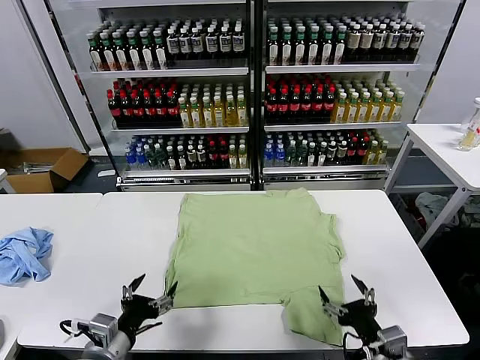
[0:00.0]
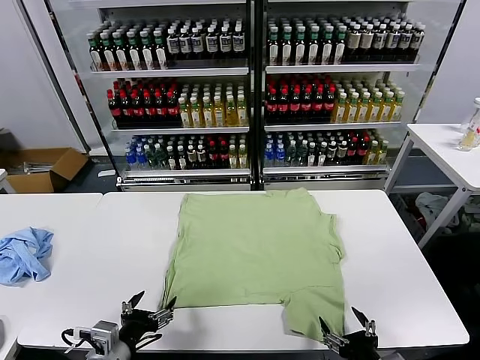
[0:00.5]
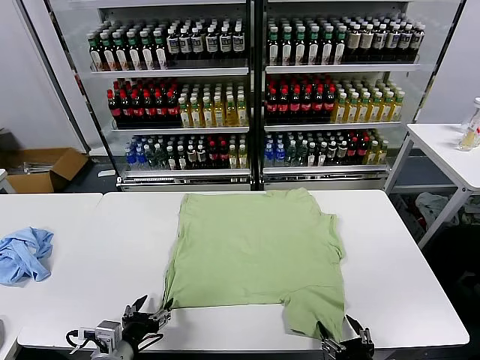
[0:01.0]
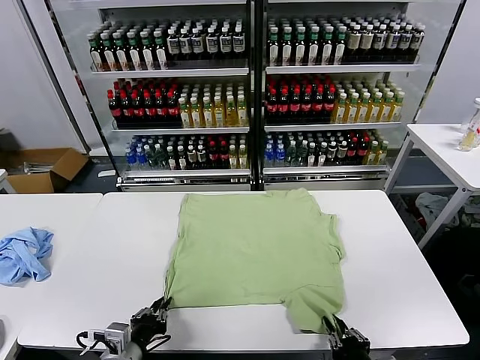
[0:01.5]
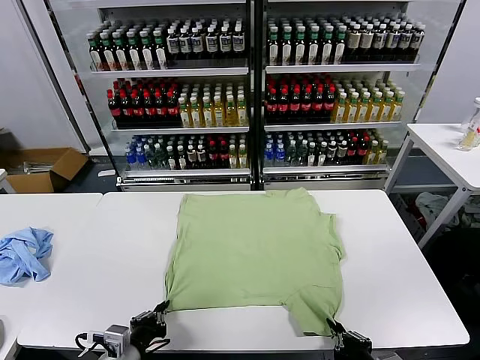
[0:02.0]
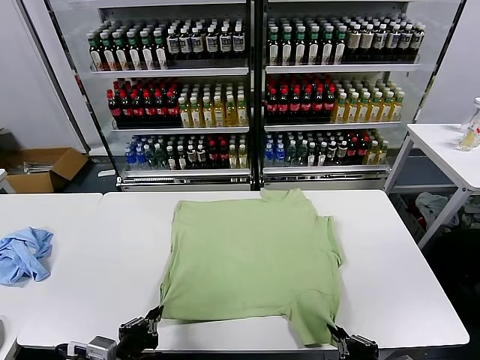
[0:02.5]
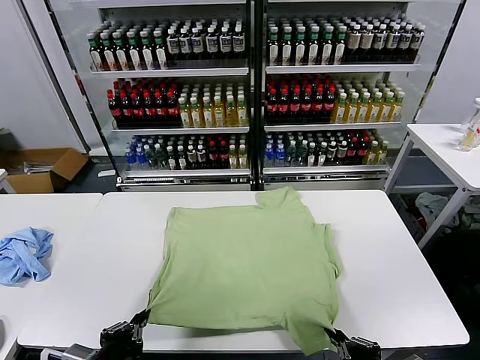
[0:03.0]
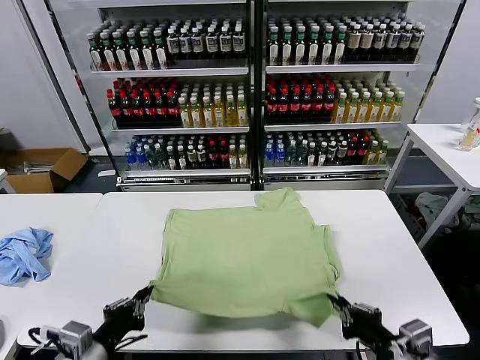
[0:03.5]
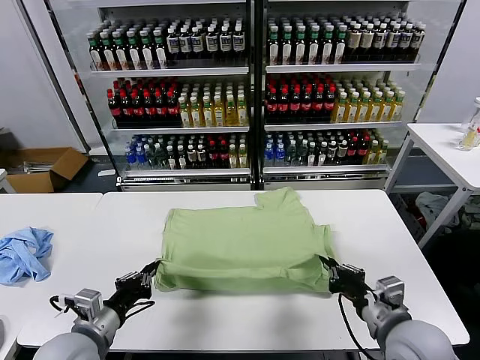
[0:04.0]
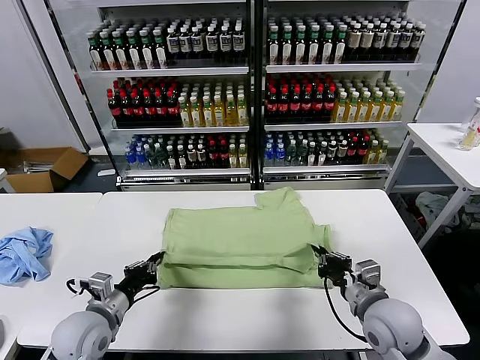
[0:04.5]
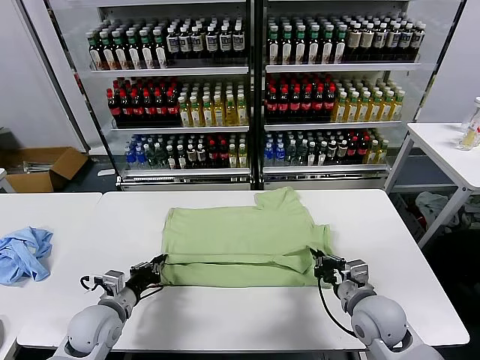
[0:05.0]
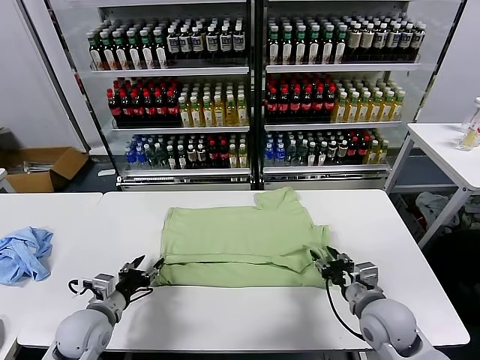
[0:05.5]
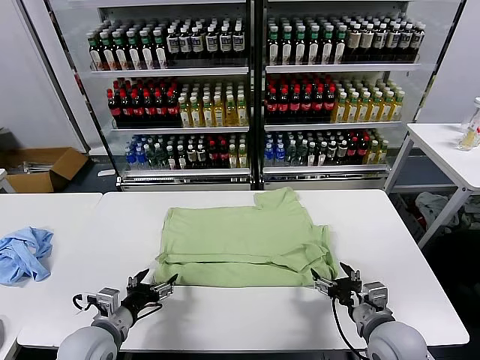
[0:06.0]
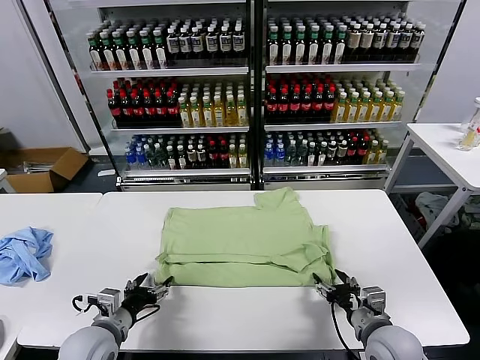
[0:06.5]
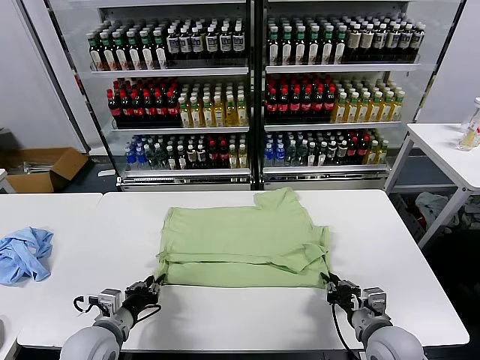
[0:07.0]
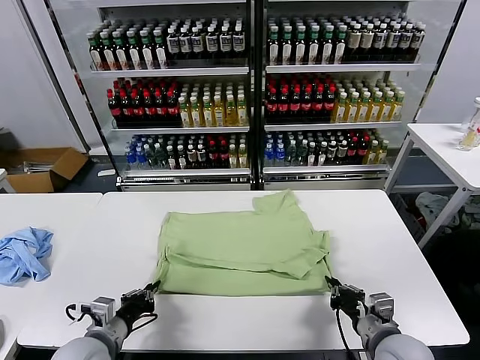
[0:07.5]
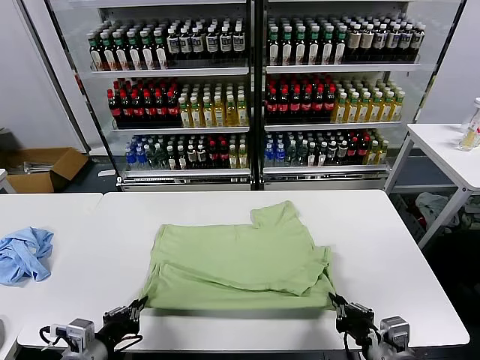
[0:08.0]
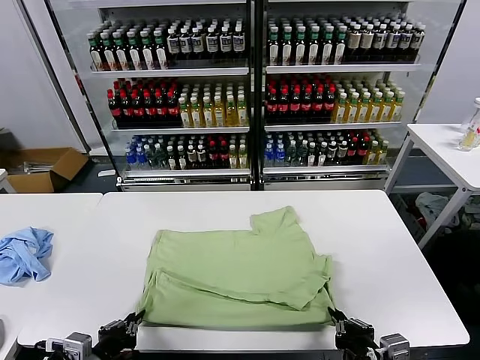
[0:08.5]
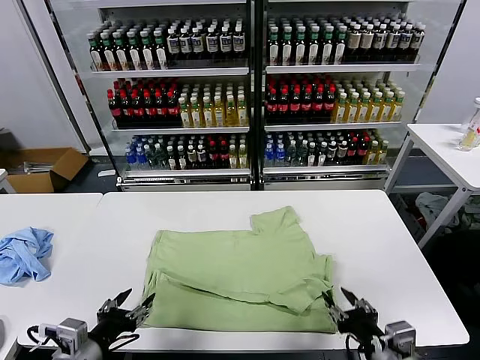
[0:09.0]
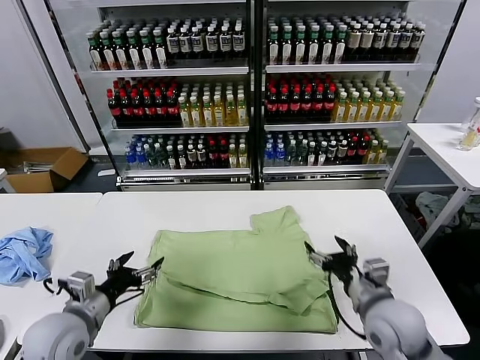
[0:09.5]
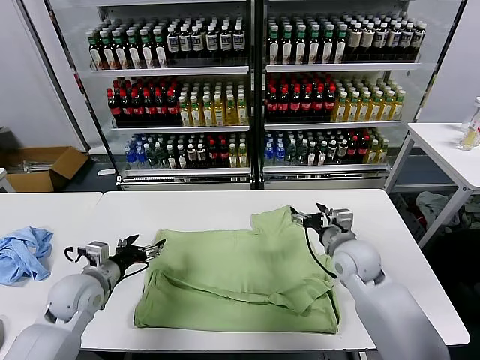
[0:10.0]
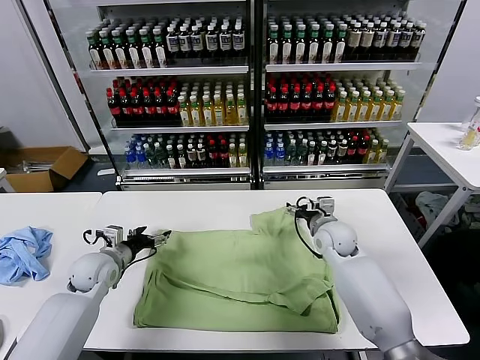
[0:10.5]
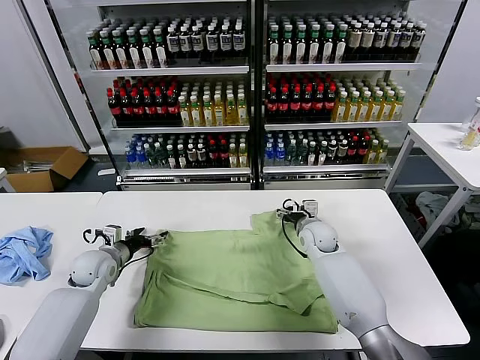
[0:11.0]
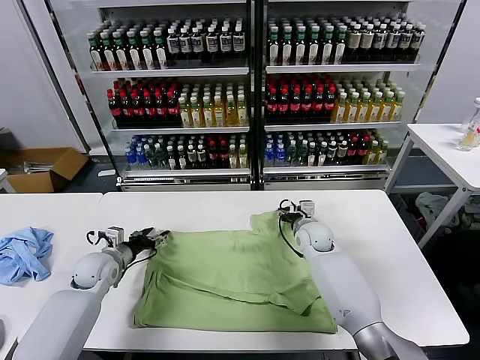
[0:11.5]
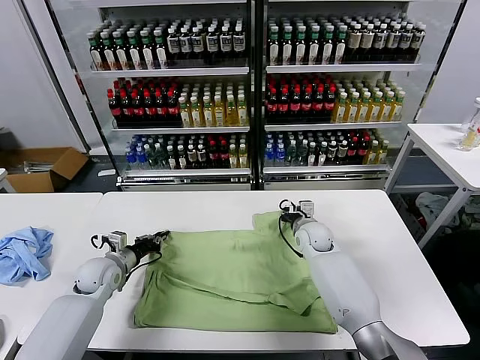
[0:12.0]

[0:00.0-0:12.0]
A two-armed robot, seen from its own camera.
Task of the whole recording: fold and organize the clothes.
Step, 0:00.0 to 0:02.0: use both grippers simultaneously to clamp the lower edge of the clothing fabric.
Step, 0:02.5 to 0:05.5: use both grippers to drag the lower edge of the fabric forward and fold it over the upper edge.
Step, 0:06.0 to 0:08.5: Drag the clothes downward with both gripper.
0:02.0 to 0:04.0: The right gripper travels forward and upward by some 15 cm. The left gripper is displaced forward and upward by some 5 cm.
0:04.0 to 0:06.0: The two grippers go roughly 5 cm downward. The right gripper opens its fingers. The left gripper travels forward and back again, approximately 10 cm each way, and opens its fingers.
0:06.0 to 0:08.0: The grippers both shift backward by approximately 10 cm. The right gripper closes its fingers. Meanwhile the left gripper closes.
0:08.0 to 0:10.0: The left gripper is displaced forward by some 20 cm, and opens, while the right gripper shifts about 25 cm forward, and opens.
0:10.0 to 0:12.0: The grippers both shift forward and downward by some 10 cm. The left gripper closes. The right gripper closes.

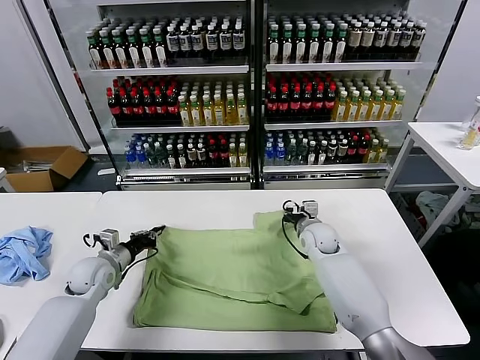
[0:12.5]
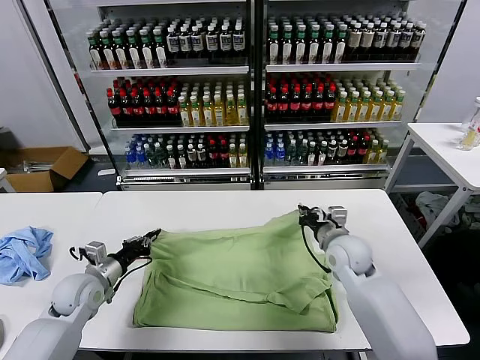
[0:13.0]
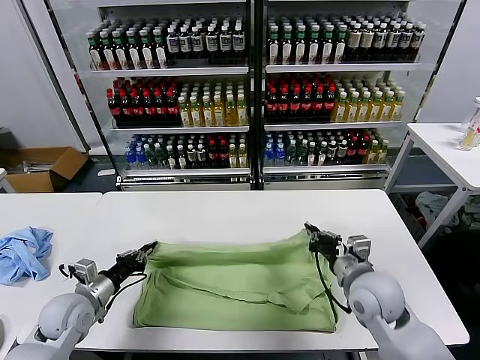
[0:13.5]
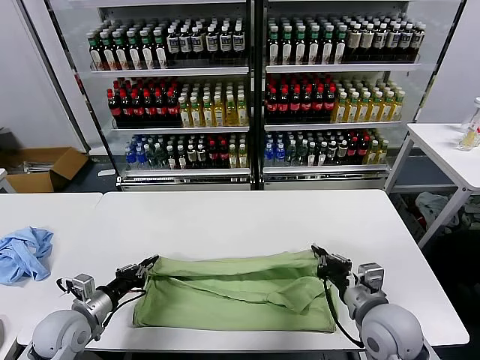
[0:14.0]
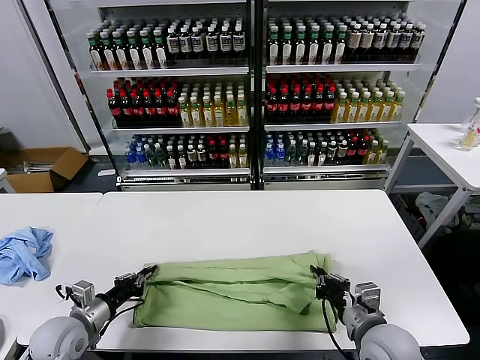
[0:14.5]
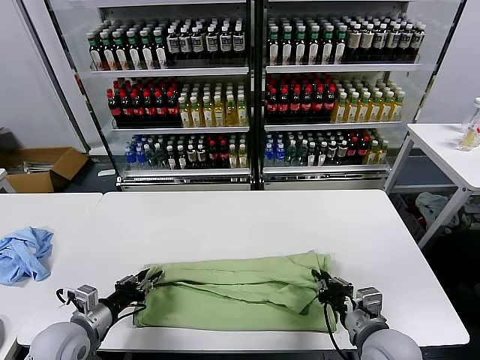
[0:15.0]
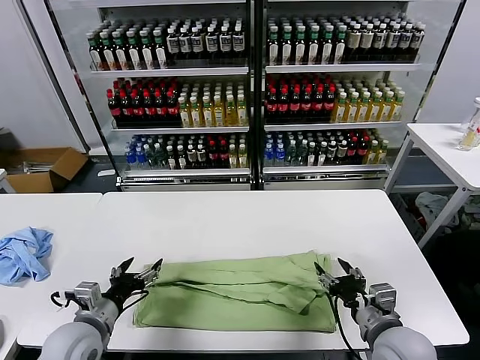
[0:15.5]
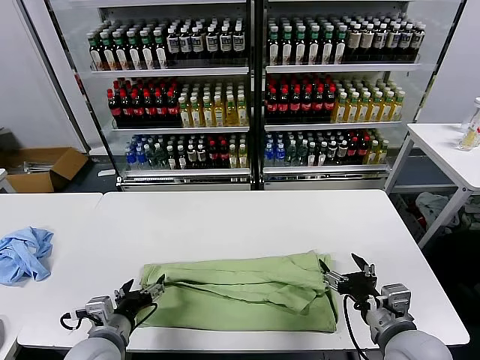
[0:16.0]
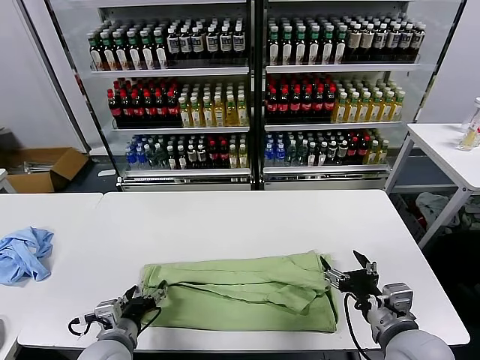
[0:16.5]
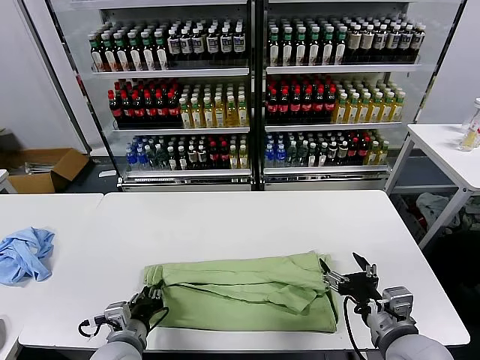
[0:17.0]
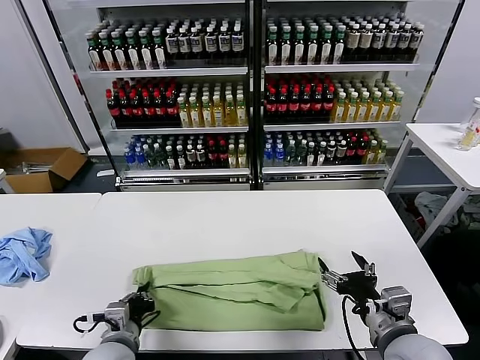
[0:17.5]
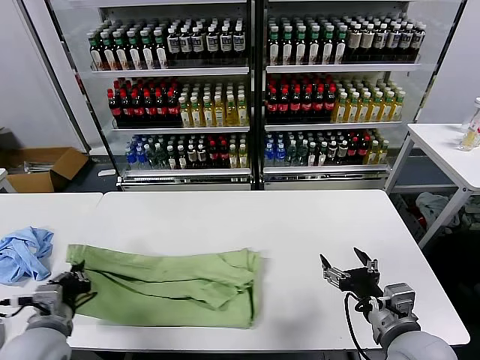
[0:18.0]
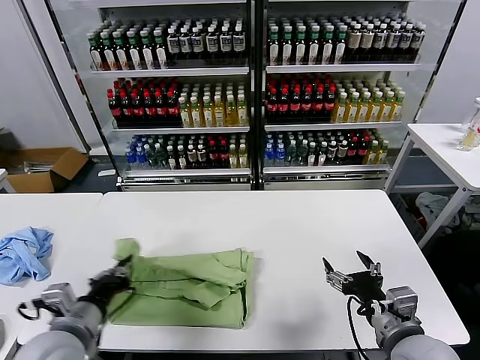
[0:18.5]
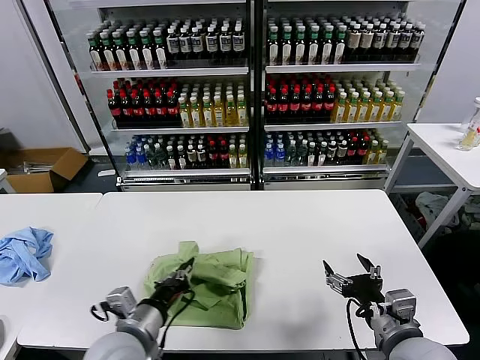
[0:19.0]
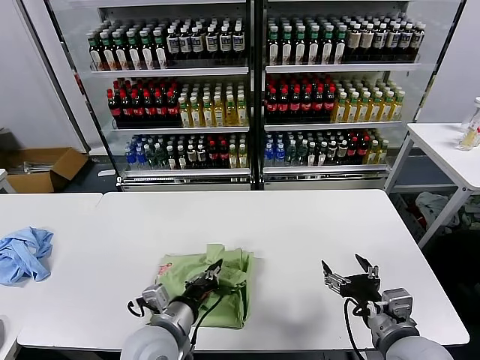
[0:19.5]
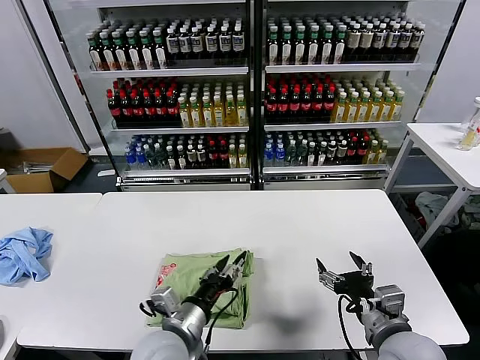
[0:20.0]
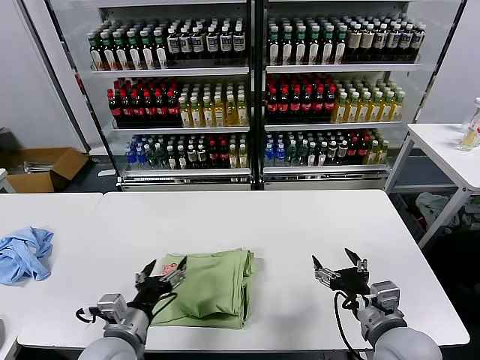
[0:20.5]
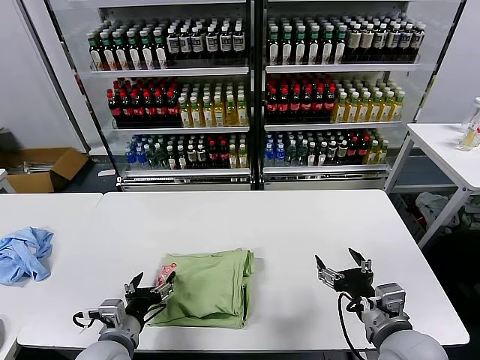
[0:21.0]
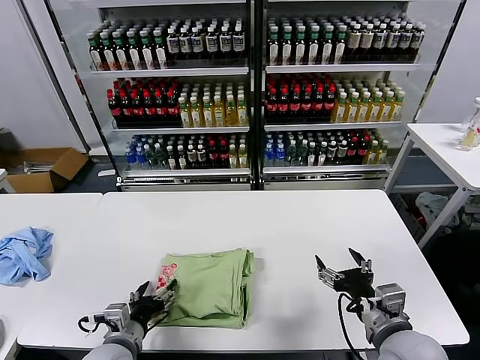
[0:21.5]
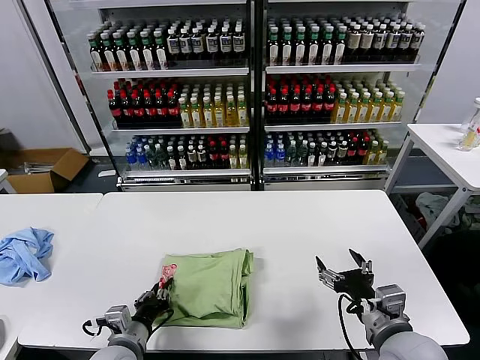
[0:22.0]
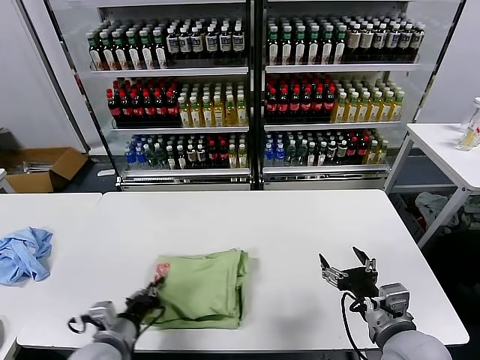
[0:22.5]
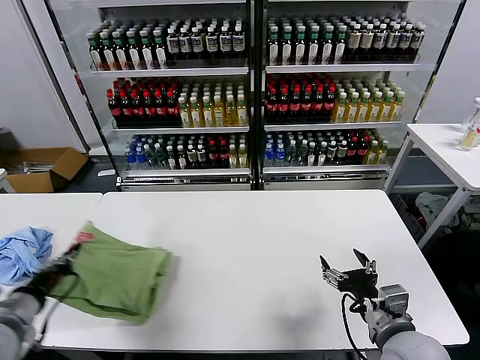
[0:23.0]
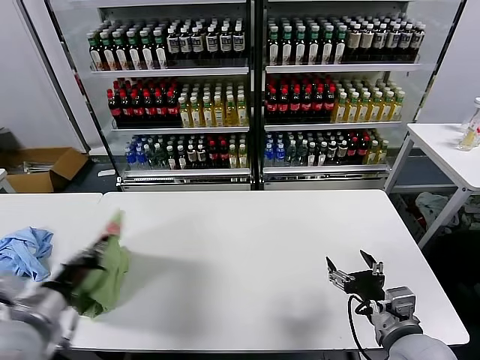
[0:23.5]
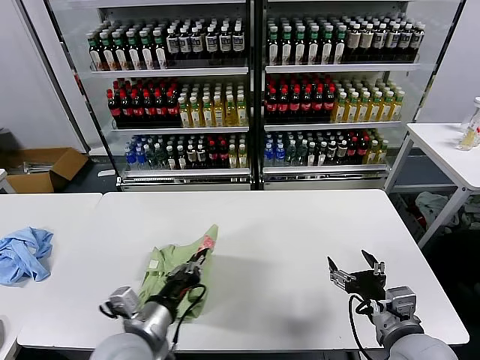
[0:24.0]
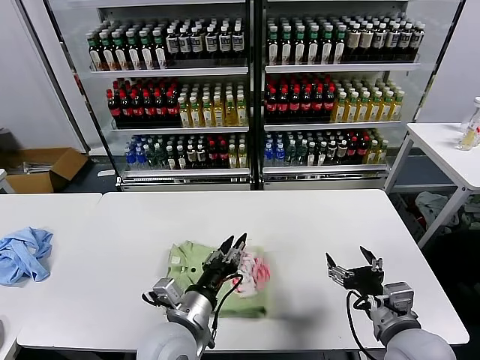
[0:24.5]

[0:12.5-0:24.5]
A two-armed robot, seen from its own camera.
Task of the whole recording: fold and organize the clothes.
Step, 0:12.5 to 0:15.0: use both grippers to drag the upper edge of the fabric backward and fold it over the lower edge.
Step, 0:15.5 to 0:17.0: use the left gripper to clamp the left edge of the fabric.
Step, 0:17.5 to 0:20.0: use the left gripper to drag the left edge of the fabric to the left and folds it over the right edge.
0:12.5 to 0:14.5: The right gripper is displaced backward by approximately 30 cm; the left gripper moves backward, some 15 cm.
0:14.5 to 0:16.5: The right gripper changes place by about 5 cm, and opens. Meanwhile the left gripper shifts some 10 cm to the right, and opens its fingers.
0:16.5 to 0:18.5: The left gripper is displaced upward by roughly 10 cm, and closes.
0:18.5 to 0:20.5: The left gripper moves to the right and downward, about 10 cm, and opens its fingers.
0:20.5 to 0:22.5: The left gripper closes.
0:22.5 to 0:24.5: The left gripper is displaced to the right and upward by some 15 cm.

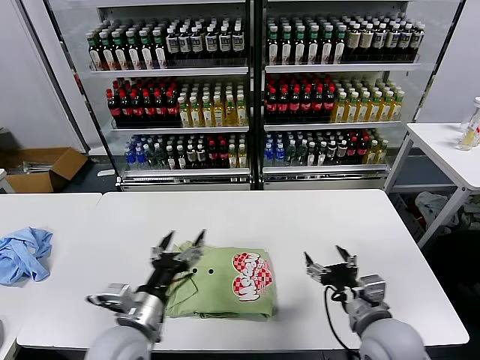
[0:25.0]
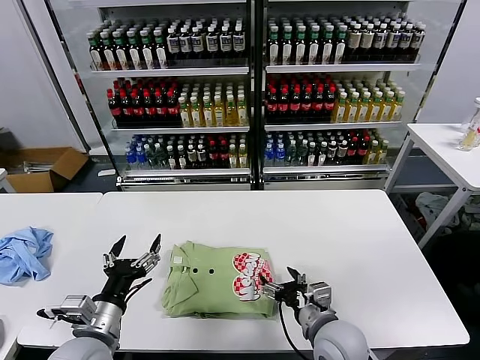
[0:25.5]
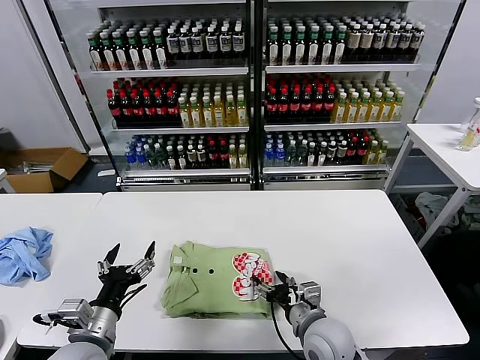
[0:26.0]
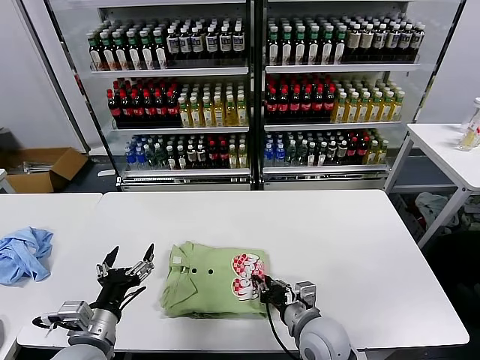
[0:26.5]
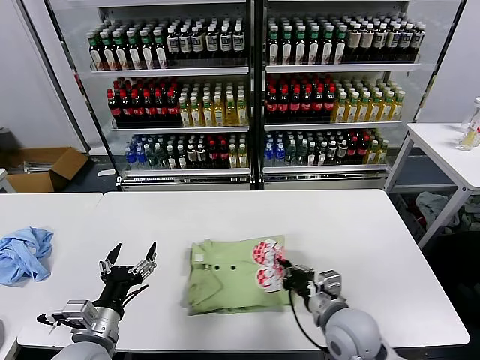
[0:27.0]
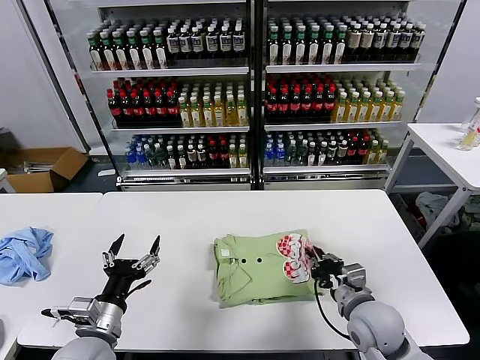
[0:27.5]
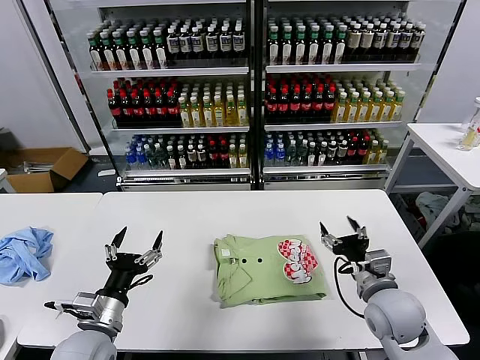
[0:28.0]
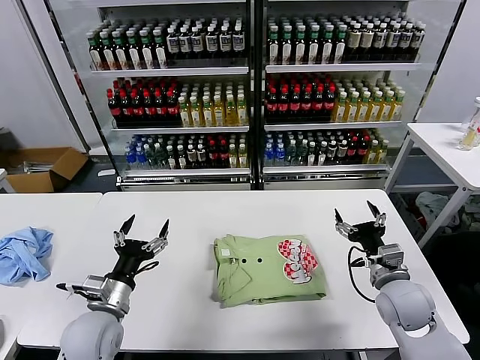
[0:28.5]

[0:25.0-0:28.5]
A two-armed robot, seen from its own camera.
Task of the whole recording: fold and organize the clothes.
Step, 0:25.0 to 0:27.5: Drag the clothes to the center of the table.
0:25.0 to 0:27.0: The two grippers go roughly 5 cm to the left. The right gripper closes up.
0:27.0 to 0:28.5: The left gripper shifts about 5 cm forward, while the right gripper goes approximately 10 cm to the right, and opens its fingers.
